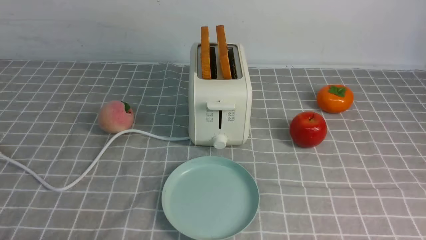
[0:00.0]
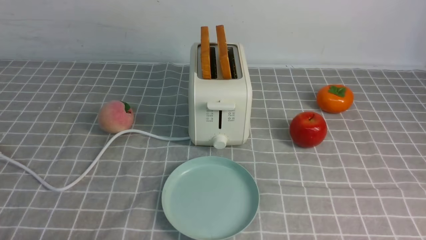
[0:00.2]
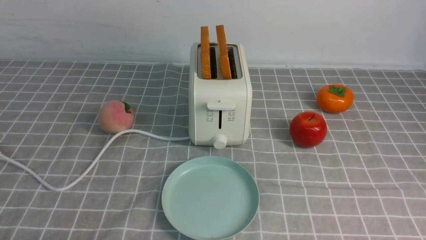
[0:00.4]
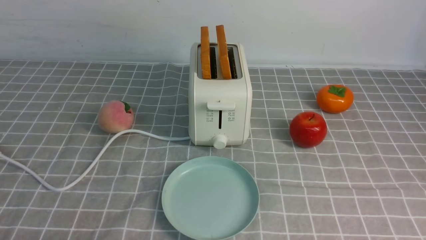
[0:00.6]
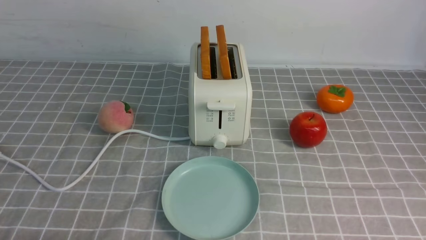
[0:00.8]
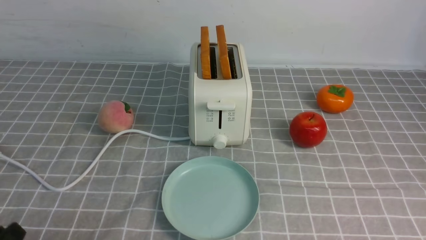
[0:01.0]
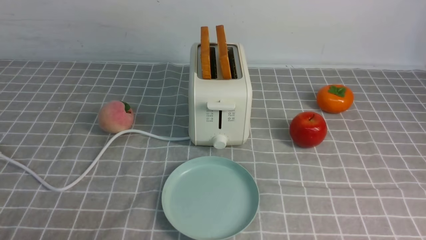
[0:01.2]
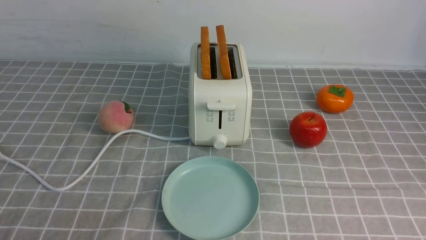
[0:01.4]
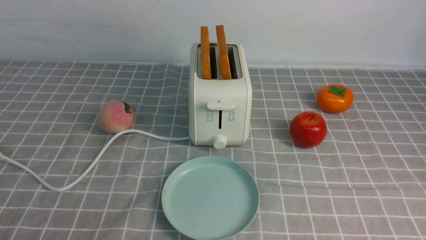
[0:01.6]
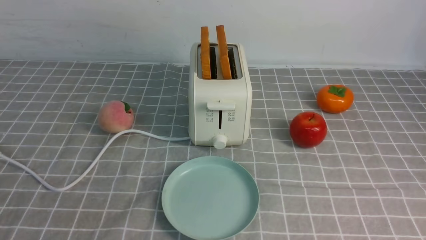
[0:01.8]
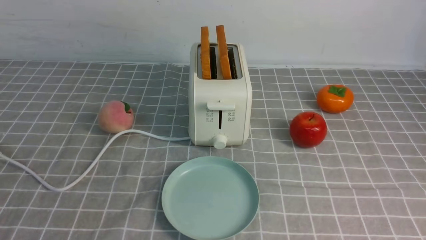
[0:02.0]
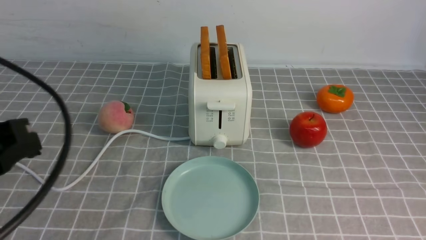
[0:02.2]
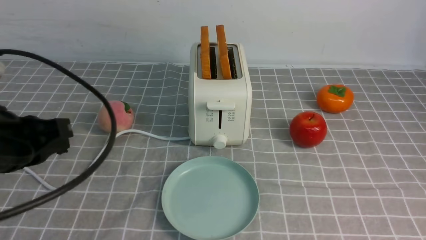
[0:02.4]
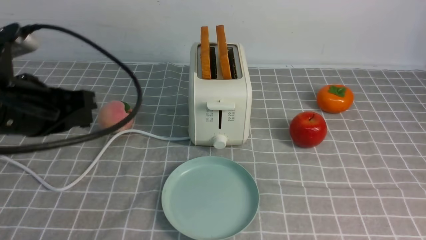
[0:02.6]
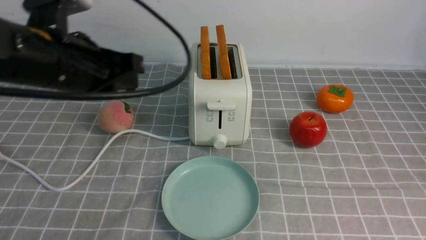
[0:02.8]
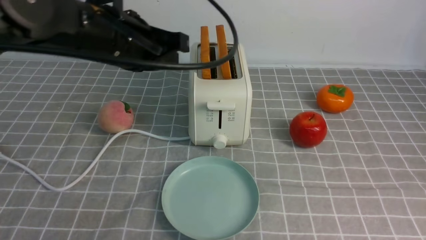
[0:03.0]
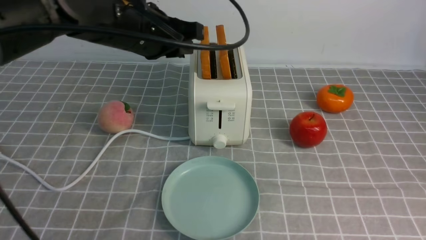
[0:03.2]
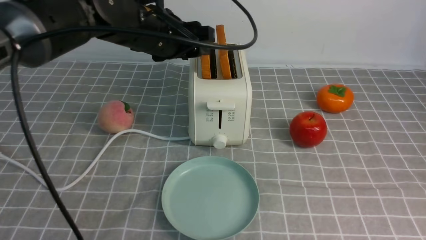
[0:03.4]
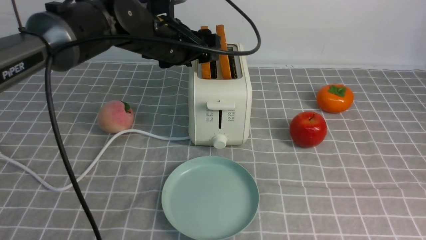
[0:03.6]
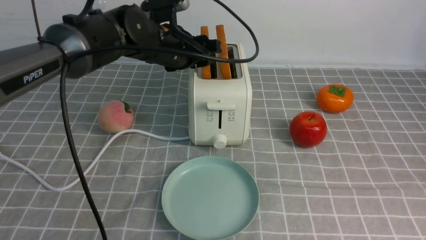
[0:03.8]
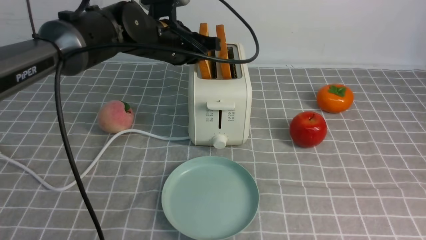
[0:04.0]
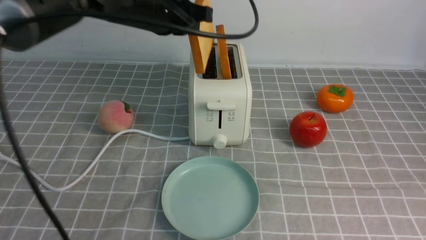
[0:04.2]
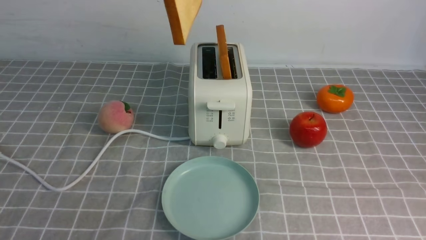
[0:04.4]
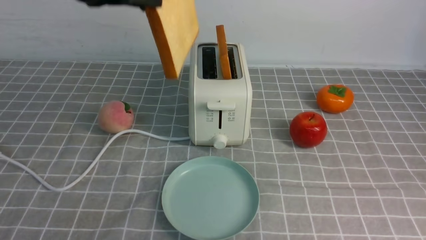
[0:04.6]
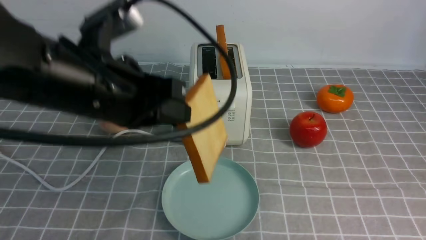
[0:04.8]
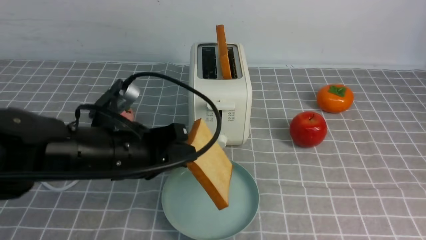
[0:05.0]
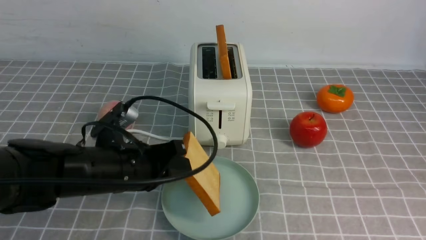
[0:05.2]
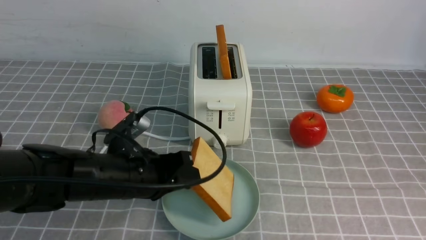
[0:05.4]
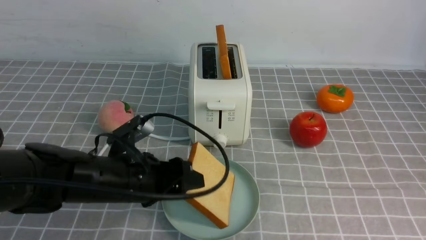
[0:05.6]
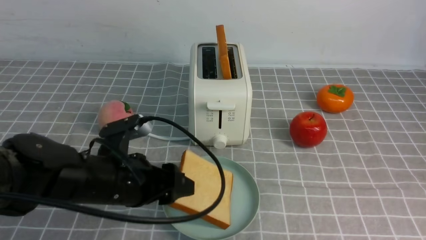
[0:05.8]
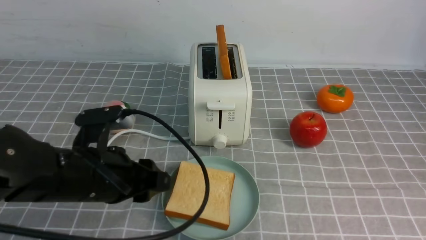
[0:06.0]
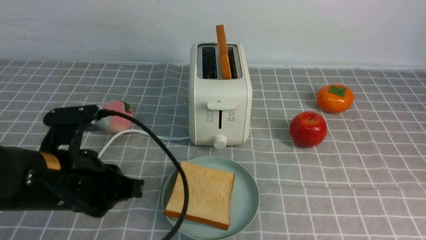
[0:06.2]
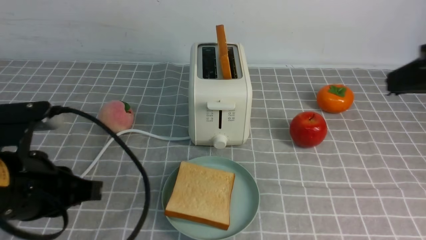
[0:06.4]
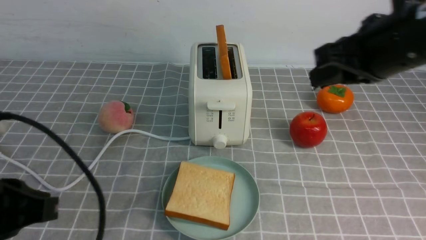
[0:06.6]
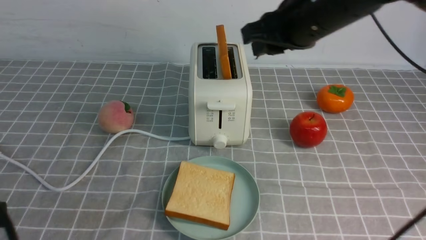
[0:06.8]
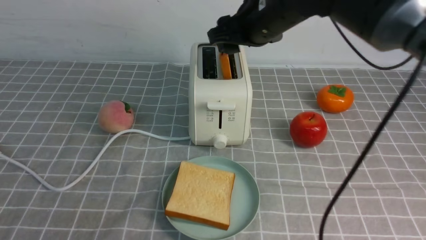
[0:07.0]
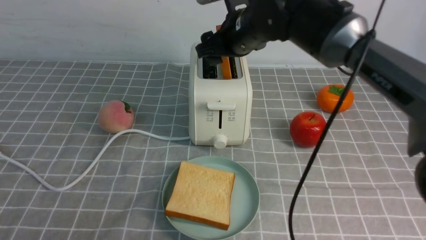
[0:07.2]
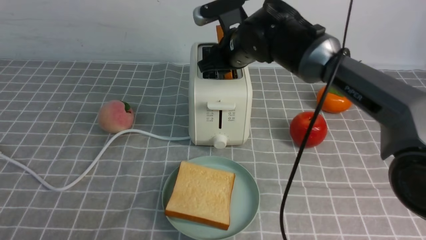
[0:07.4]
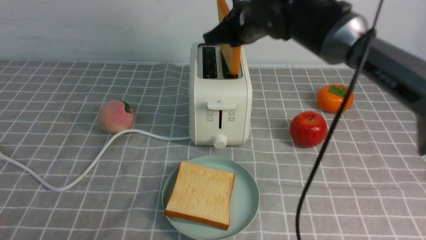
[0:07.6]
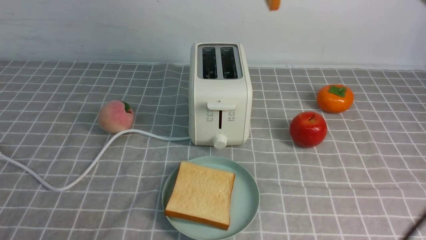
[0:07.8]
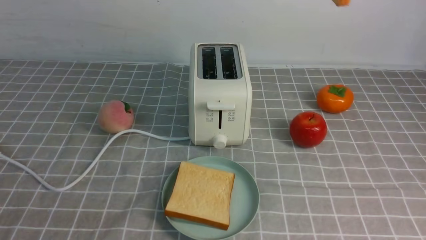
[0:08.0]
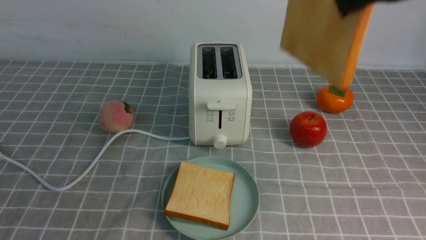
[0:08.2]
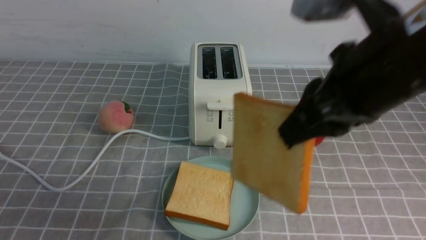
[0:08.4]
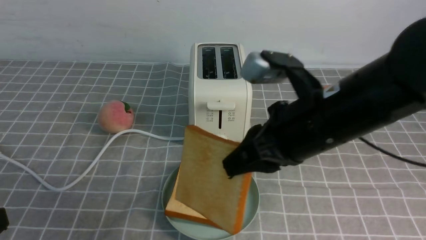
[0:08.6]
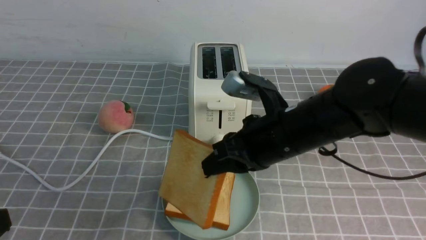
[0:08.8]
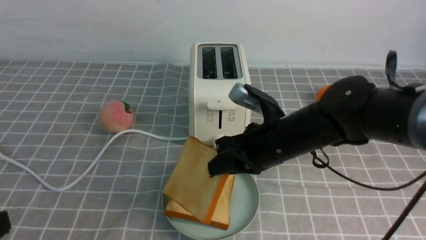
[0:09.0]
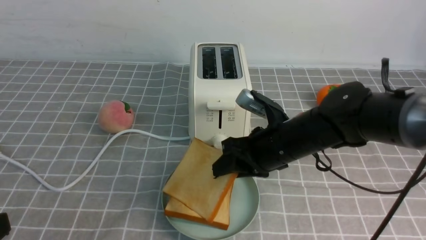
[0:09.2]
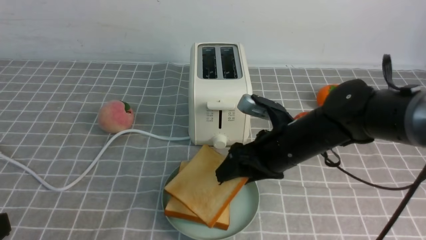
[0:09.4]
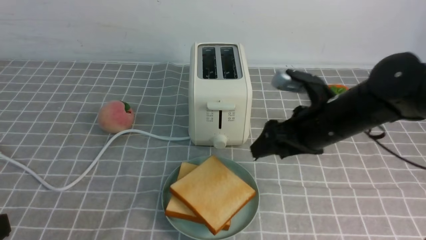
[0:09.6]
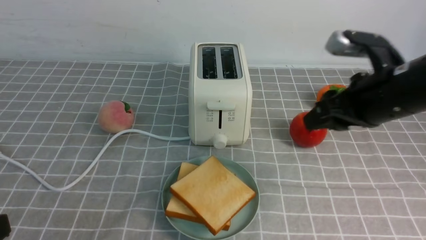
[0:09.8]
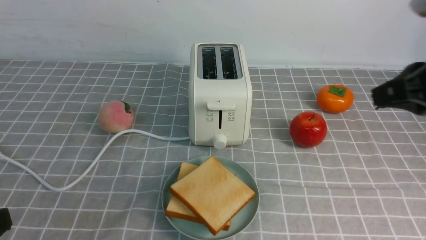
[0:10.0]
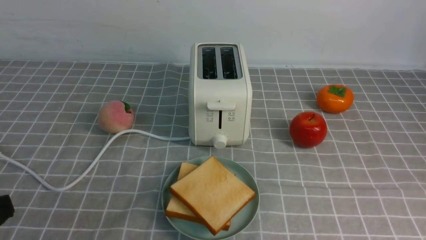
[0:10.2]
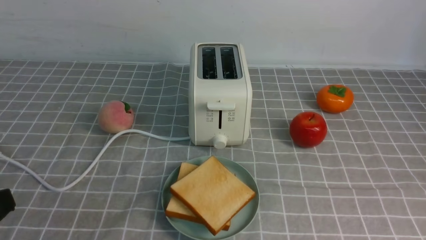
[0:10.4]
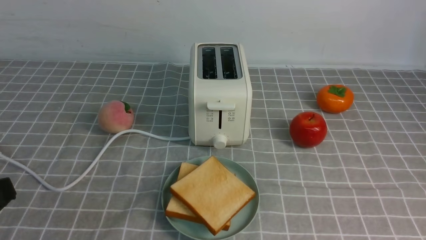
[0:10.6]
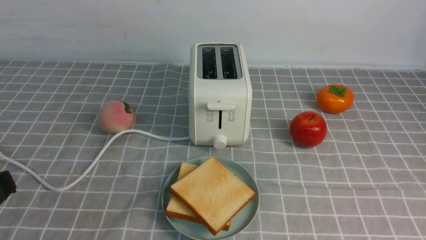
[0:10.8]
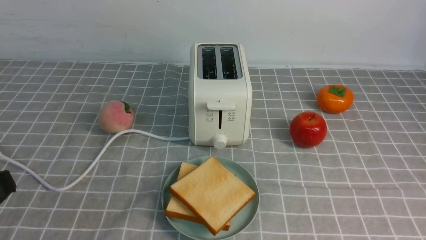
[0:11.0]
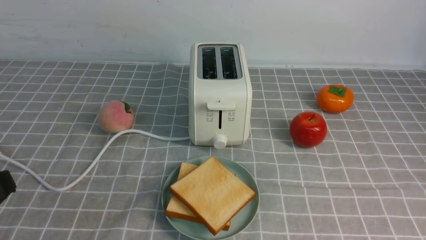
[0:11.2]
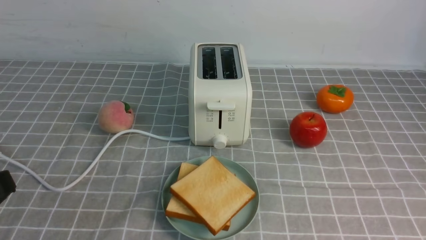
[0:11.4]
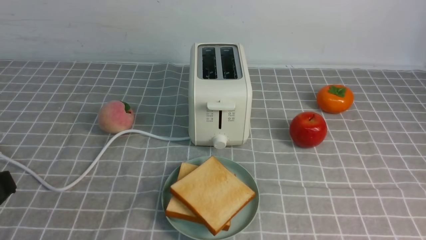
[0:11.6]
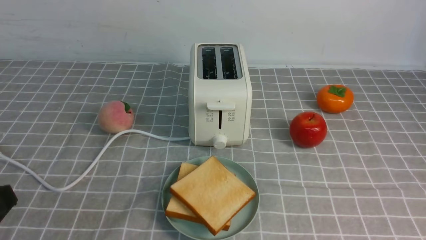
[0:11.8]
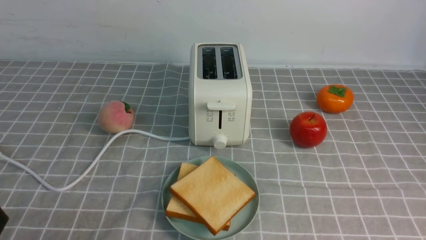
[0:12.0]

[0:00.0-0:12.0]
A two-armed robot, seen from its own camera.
Task of the whole recording: take toasted bread from bread machine on grey coffee table place on plate.
Step, 0:00.0 to 0:04.4: use the left arm to take out a slice of bread.
Step, 0:04.6 to 0:05.8: use the left arm to put a slice of bread into the empty plate.
Step, 0:06.0 to 0:07.4: use the right arm to take out a slice of bread.
Step, 0:07.6 to 0:09.6: use the right arm to put a slice of bread into the plate.
0:01.6 to 0:03.0: The right gripper heads upward, covering some 15 cm, and closes its fingers. The left gripper goes some 30 cm forward, to the right and upward.
0:03.0 to 0:04.4: The left gripper moves upward, approximately 5 cm, travels forward and back again, about 15 cm each way, and opens and closes again.
0:04.4 to 0:06.0: The left gripper moves downward and backward, some 25 cm, and opens.
0:06.0 to 0:07.6: The right gripper travels forward and to the left by approximately 40 cm, and opens, then closes once more. The left gripper heads backward, to the left and upward, covering approximately 25 cm, and closes up.
0:07.6 to 0:09.0: The right gripper travels backward and downward by roughly 15 cm.
0:09.0 to 0:10.4: The right gripper heads backward, to the right and upward, covering about 30 cm, and opens and closes again.

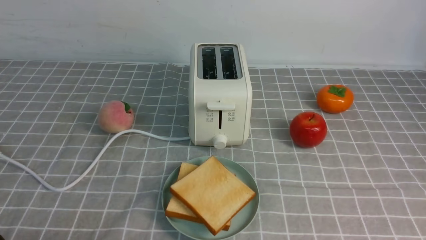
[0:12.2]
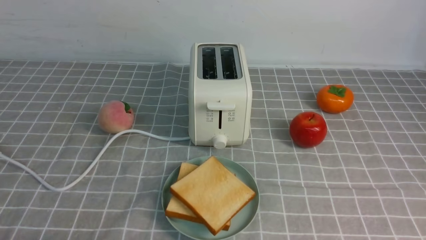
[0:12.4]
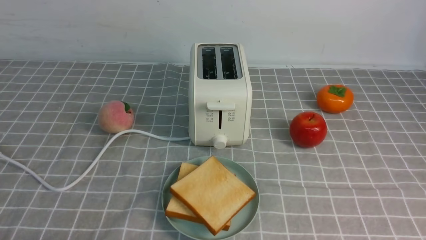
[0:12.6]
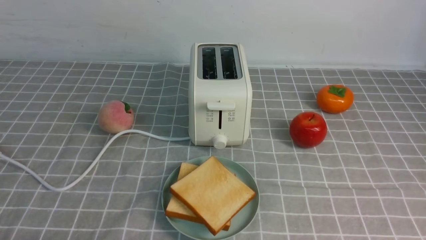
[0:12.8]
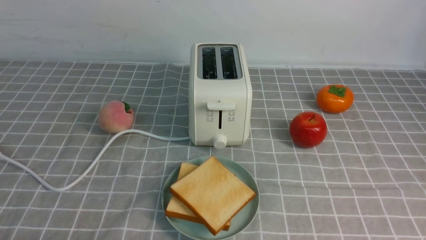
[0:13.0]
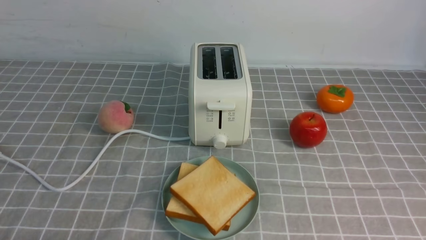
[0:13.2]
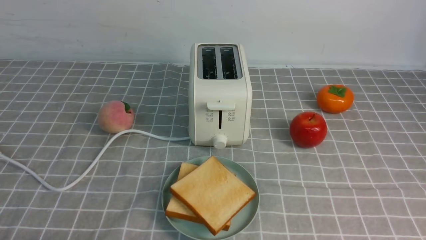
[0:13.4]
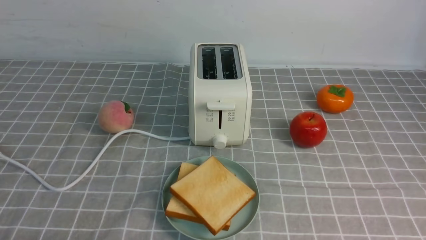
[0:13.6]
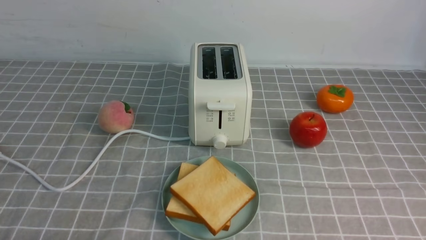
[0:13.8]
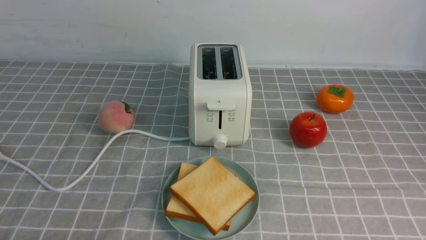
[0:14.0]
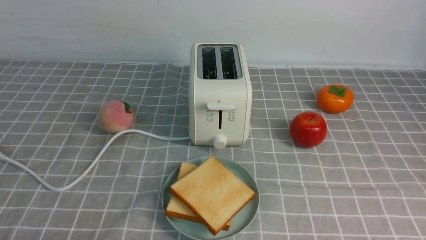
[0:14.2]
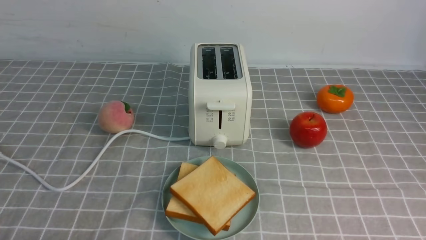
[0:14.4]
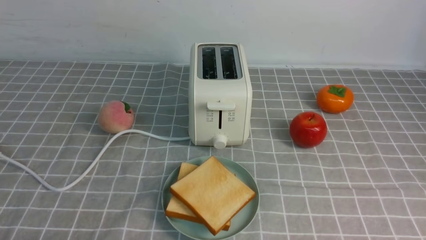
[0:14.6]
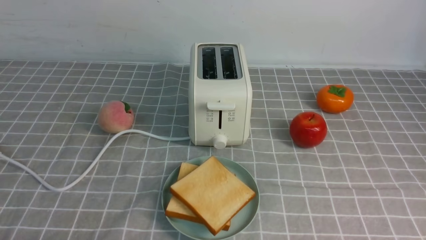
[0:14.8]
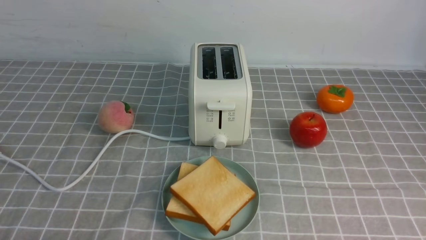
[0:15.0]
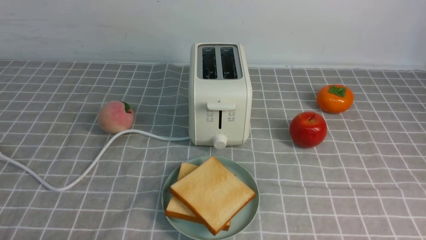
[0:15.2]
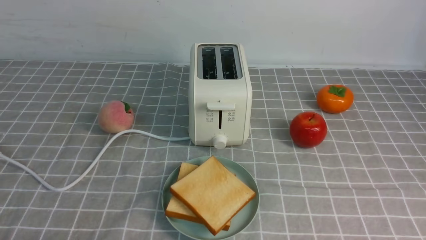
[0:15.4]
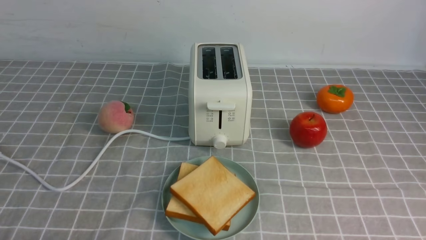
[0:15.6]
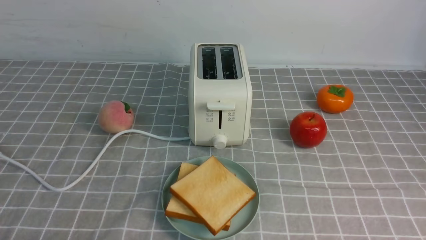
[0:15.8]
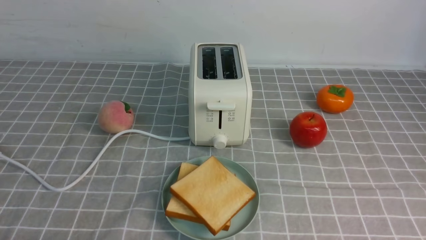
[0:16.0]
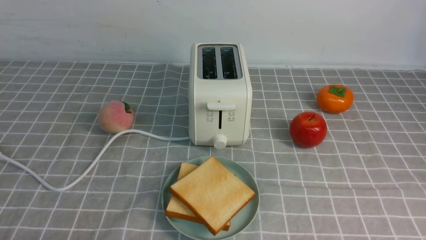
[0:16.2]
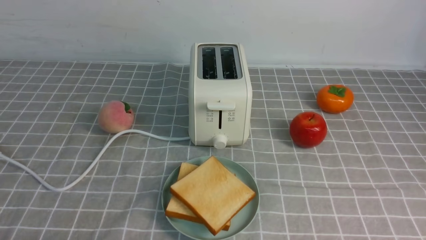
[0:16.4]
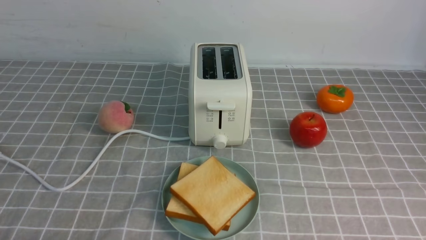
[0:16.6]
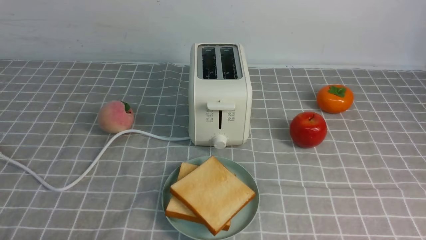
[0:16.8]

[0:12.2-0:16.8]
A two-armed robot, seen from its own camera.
Task of the whole recording: take toasted bread from bread machine on grey coffee table place on plate.
0:15.2 to 0:16.8: The two grippers keep their place.
